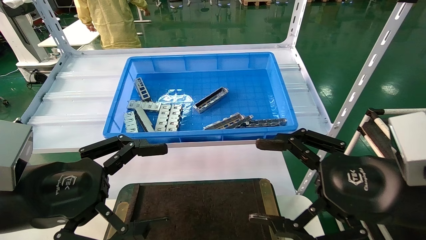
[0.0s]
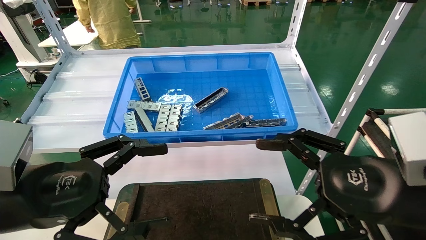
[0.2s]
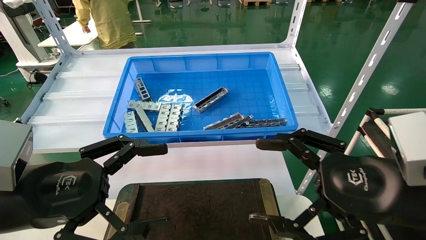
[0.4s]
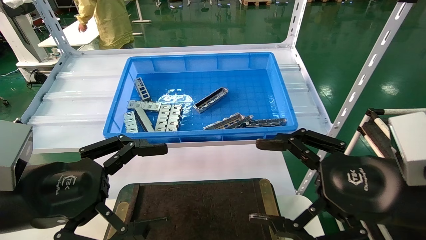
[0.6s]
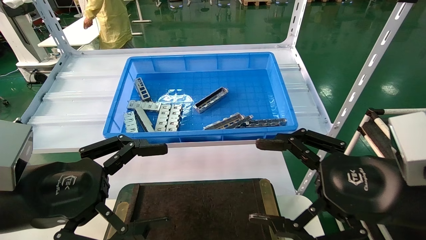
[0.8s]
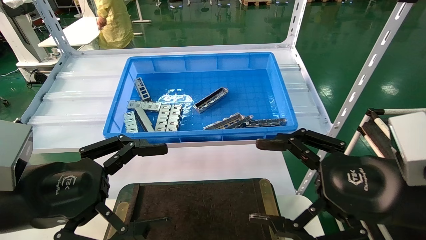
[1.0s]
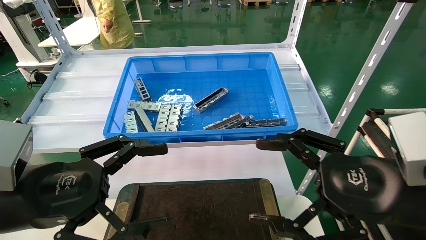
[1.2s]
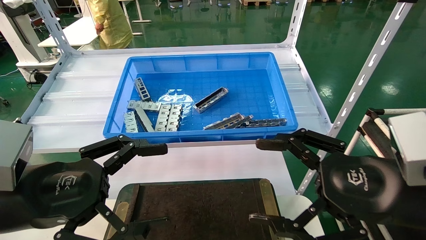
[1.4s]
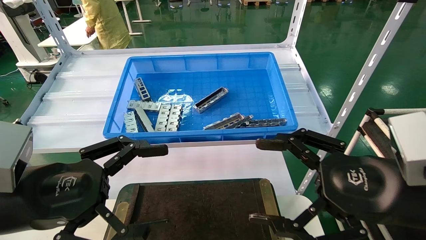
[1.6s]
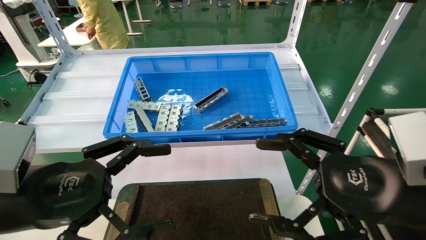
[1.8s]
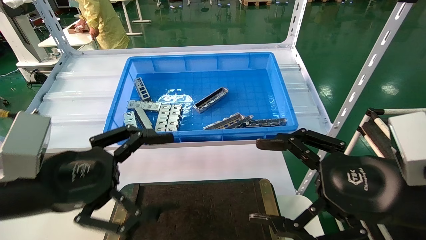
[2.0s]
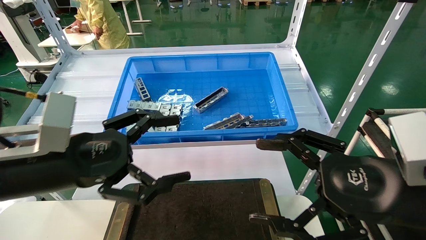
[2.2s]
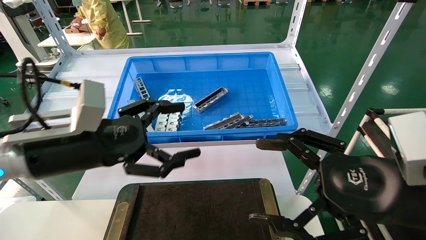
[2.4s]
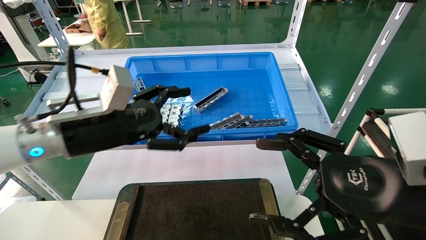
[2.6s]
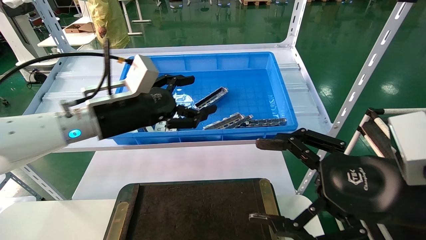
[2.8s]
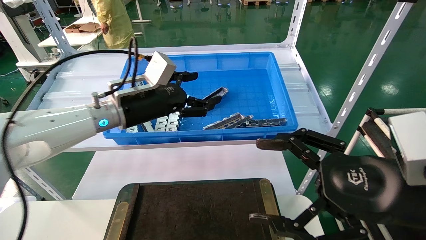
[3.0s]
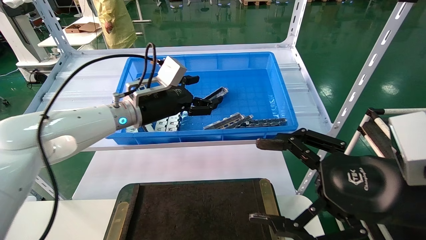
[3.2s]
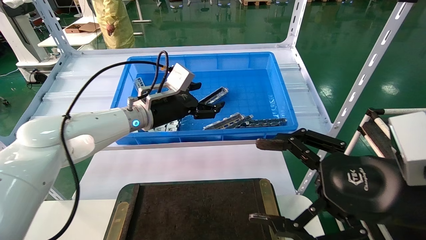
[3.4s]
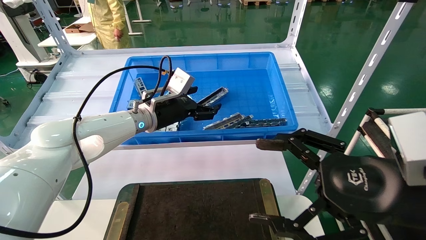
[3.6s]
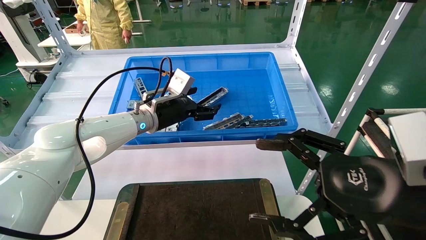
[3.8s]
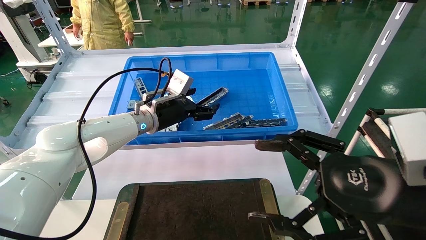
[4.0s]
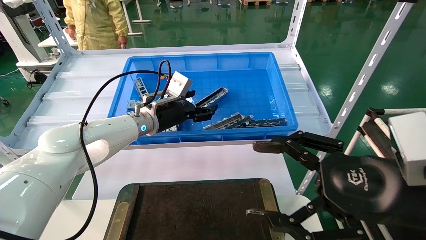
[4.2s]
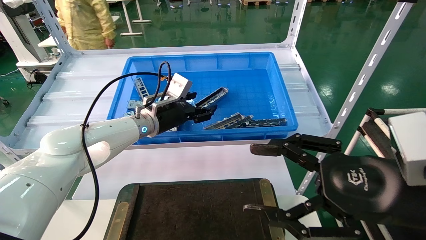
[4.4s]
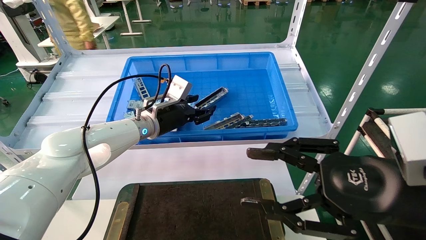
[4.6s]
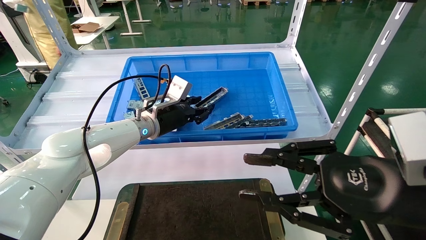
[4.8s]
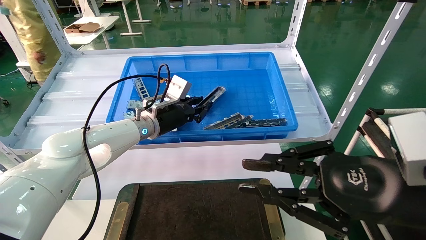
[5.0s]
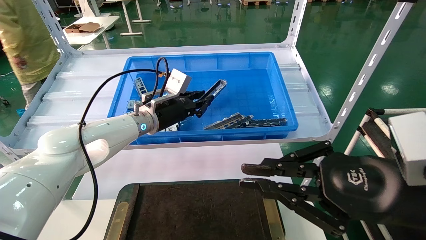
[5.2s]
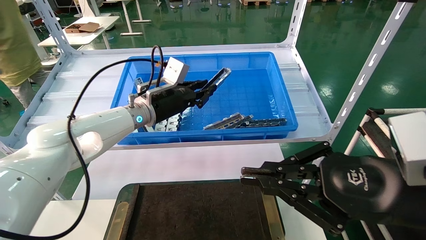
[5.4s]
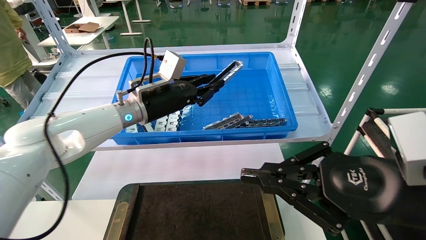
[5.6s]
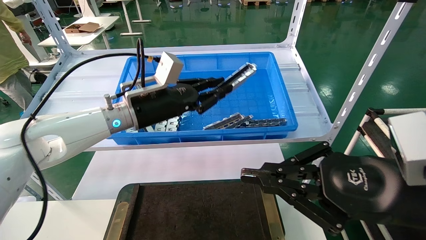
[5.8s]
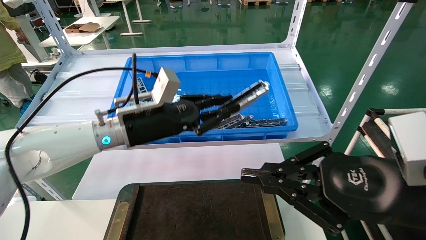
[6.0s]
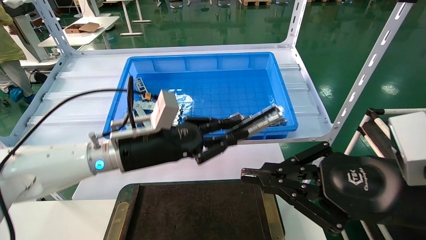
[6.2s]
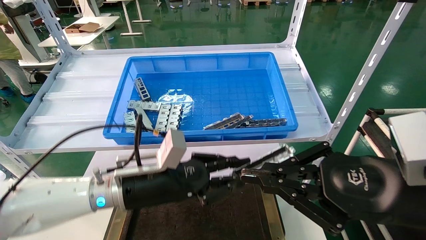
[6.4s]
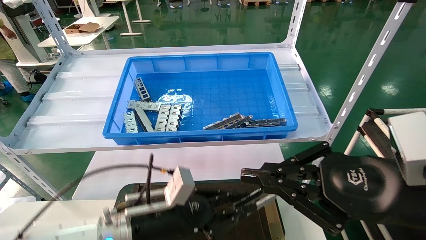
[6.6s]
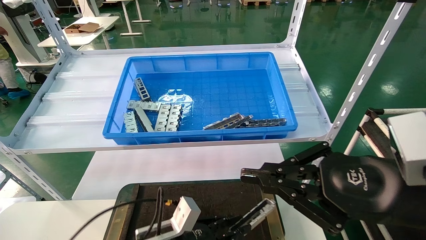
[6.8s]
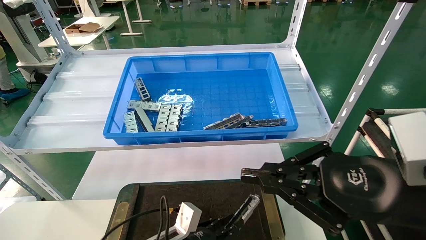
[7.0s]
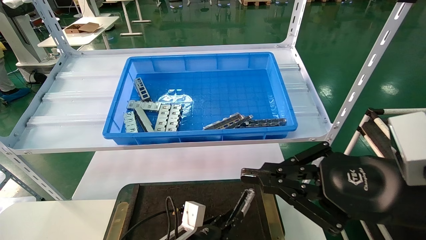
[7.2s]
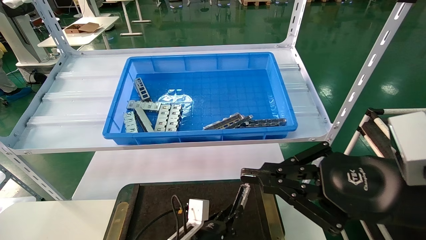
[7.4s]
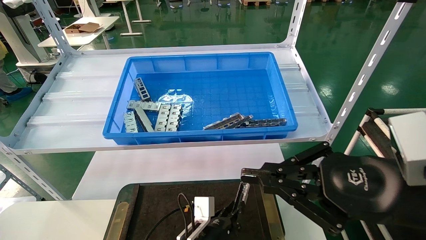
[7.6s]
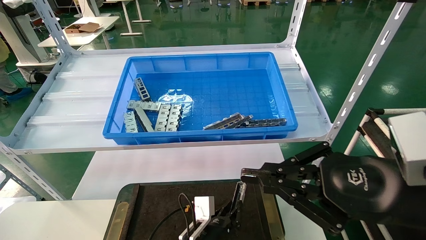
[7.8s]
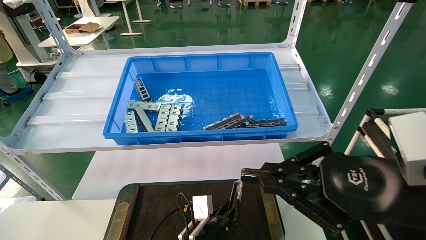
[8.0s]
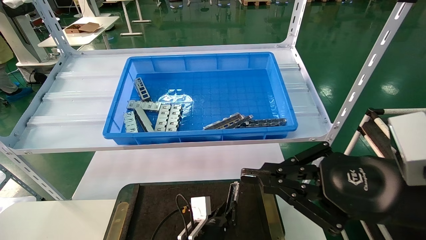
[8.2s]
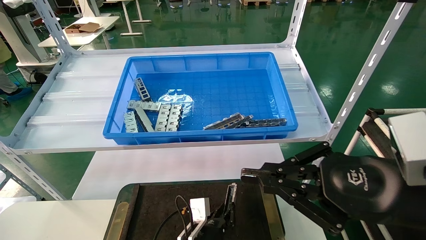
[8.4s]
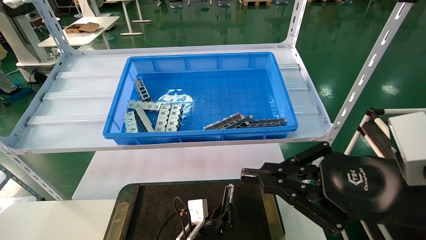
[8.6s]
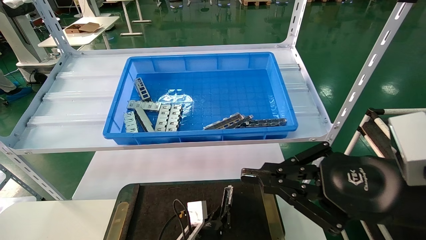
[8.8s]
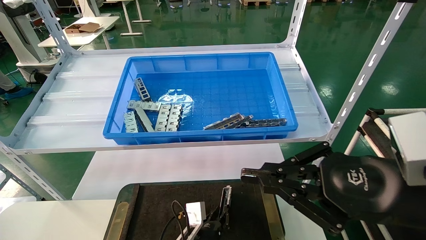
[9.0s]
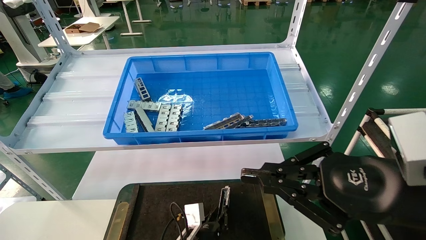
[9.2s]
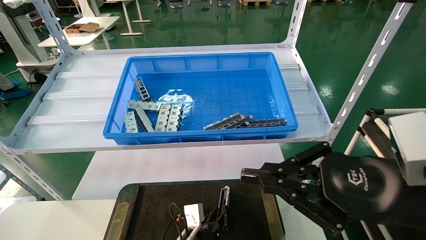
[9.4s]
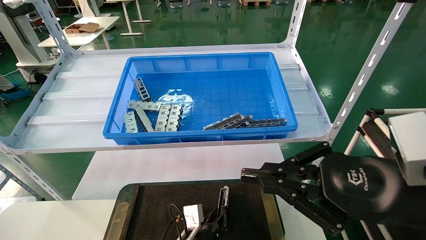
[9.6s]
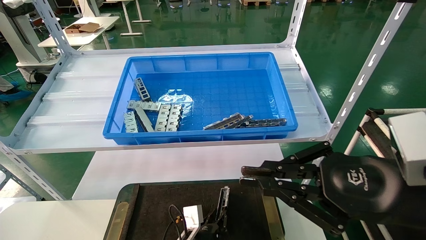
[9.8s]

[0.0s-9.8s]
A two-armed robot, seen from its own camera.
Task of the whole recording: Grasp the part with one hand and place it on the black container.
Step, 2.0s to 5.6s: Pick up the front USB bracket from the feeding area.
0.0s to 1.4s: Neither gripper changes place.
1.4s to 2.8s: The left gripper shifts about 20 cm forward and to the right.
2.8s to 4.2s: The left gripper travels forward by roughly 10 cm.
4.2s to 5.6s: The left gripper shifts by some 5 cm, and closes up; the right gripper closes its fingers.
5.6s to 7.0s: The left gripper shifts about 30 cm downward and backward.
7.0s to 8.4s: The left gripper travels to the right and downward by some 10 cm.
8.4s to 9.8s: There are only small adjustments of the grippers.

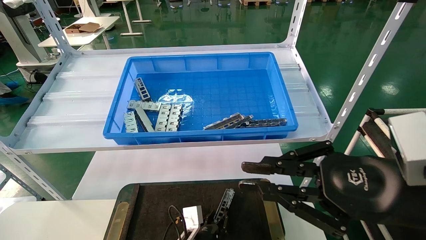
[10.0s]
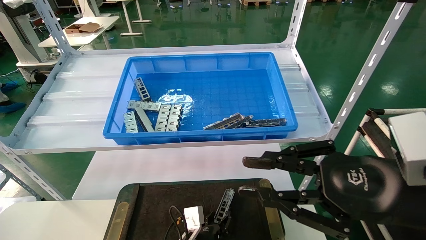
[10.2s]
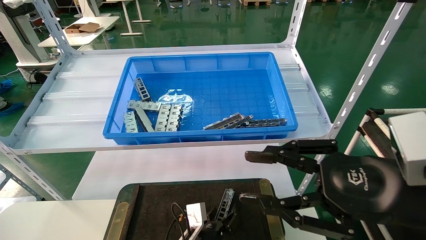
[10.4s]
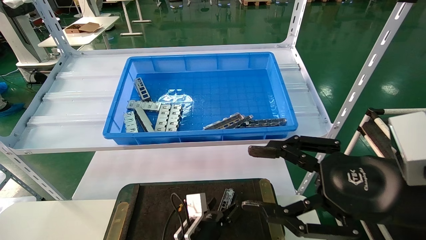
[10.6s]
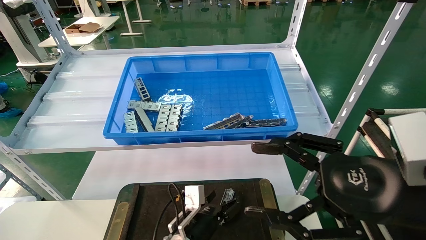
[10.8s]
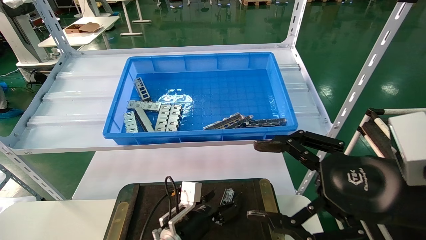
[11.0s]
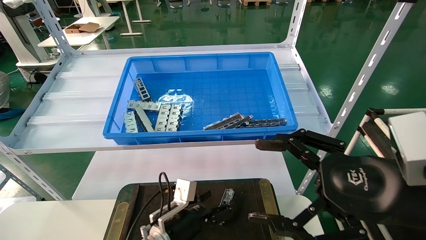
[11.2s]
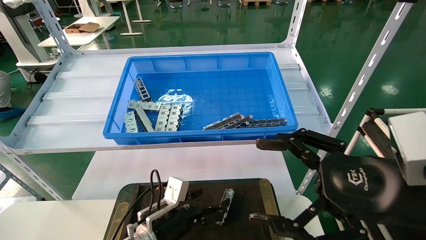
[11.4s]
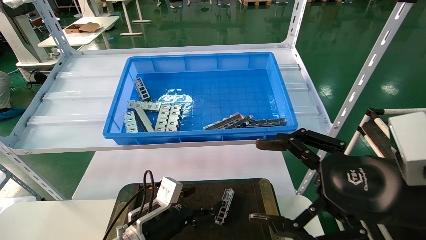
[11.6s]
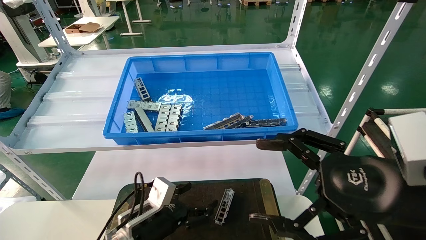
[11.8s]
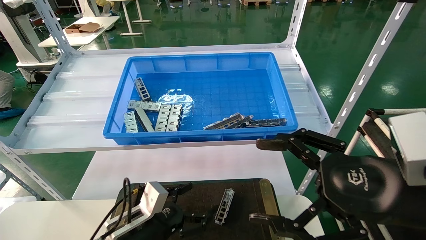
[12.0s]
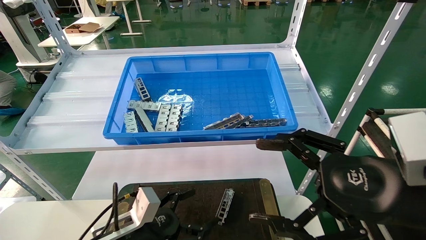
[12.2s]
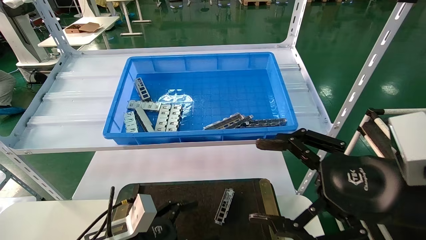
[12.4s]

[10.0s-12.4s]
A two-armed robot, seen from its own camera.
Task of the whole recording: Grasp the part with one hand and place it on the black container.
10.0s to 11.2s: The right gripper opens its fingers. Meanwhile the left gripper travels upward and to the left by roughly 10 cm, and opens its fingers.
11.2s to 12.4s: The left gripper shifts some 10 cm to the left and backward.

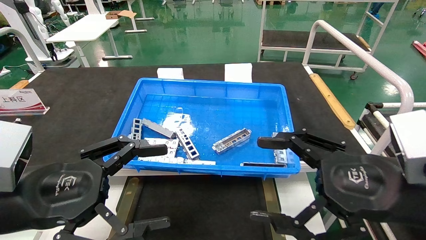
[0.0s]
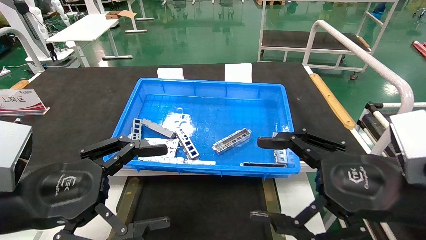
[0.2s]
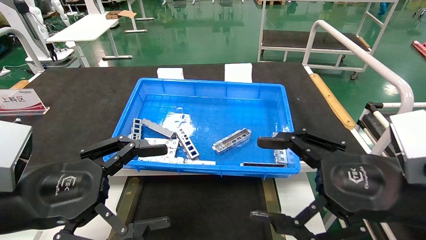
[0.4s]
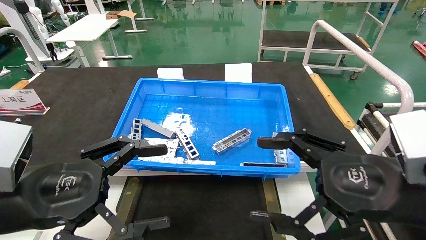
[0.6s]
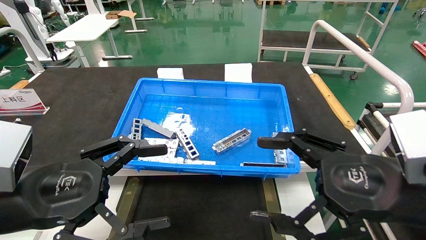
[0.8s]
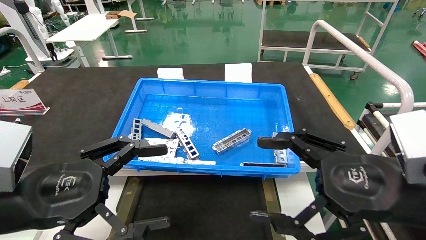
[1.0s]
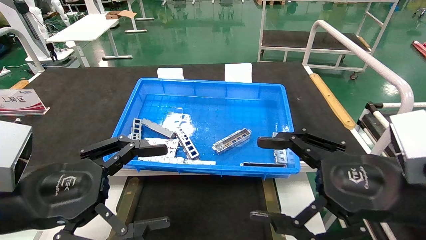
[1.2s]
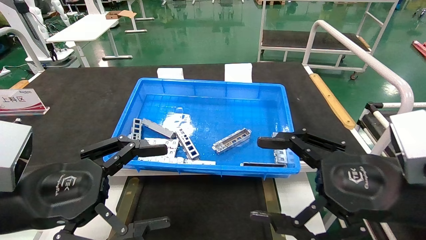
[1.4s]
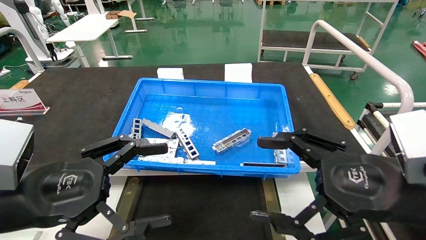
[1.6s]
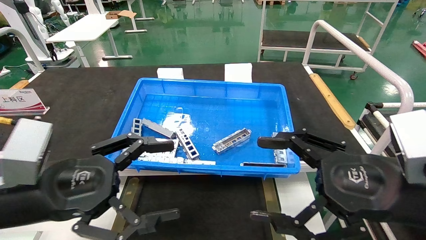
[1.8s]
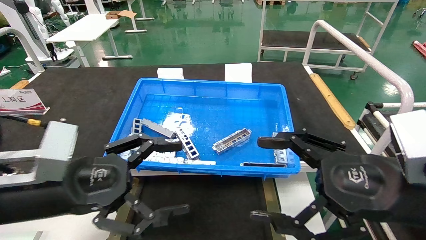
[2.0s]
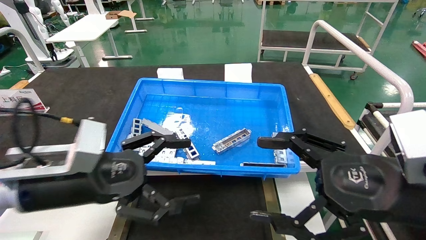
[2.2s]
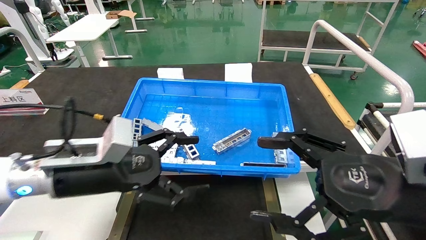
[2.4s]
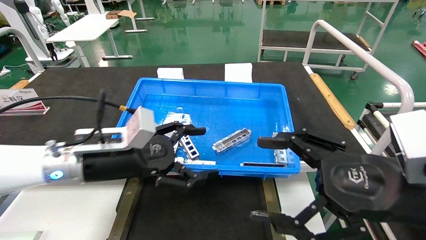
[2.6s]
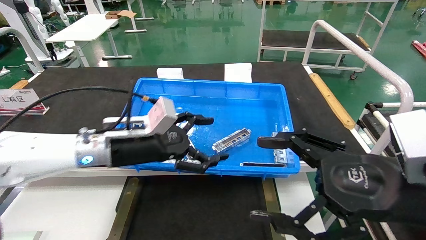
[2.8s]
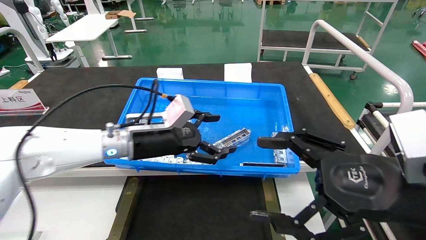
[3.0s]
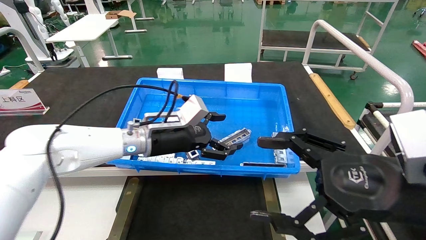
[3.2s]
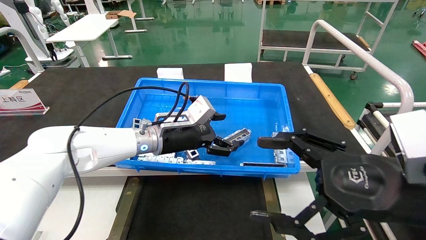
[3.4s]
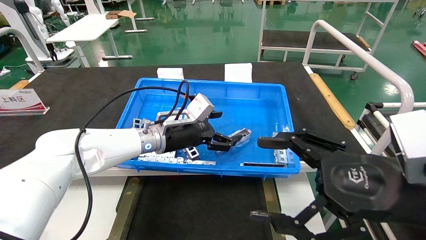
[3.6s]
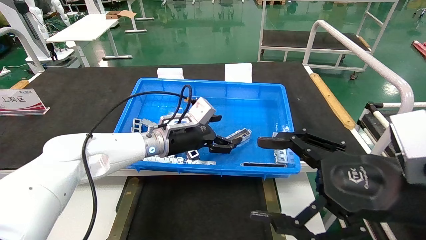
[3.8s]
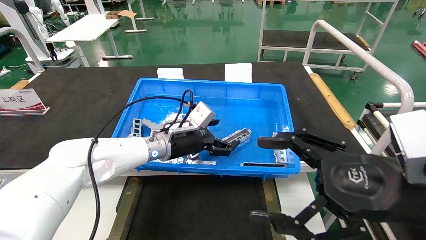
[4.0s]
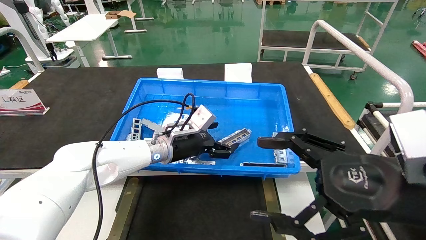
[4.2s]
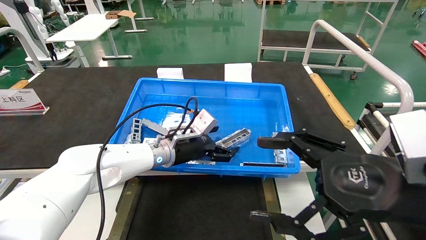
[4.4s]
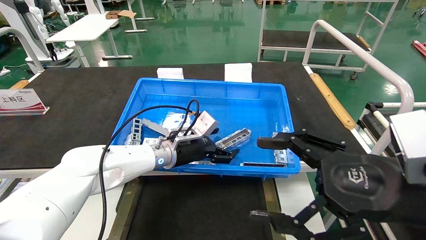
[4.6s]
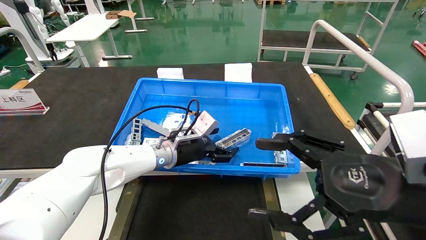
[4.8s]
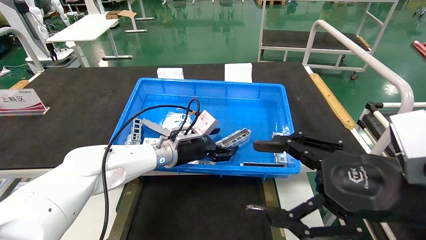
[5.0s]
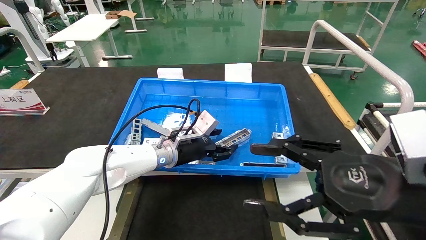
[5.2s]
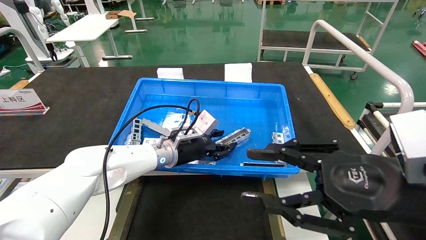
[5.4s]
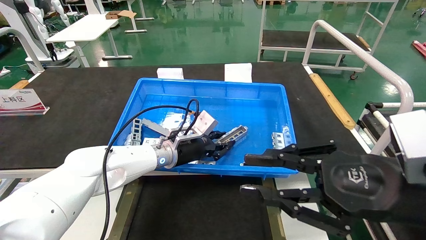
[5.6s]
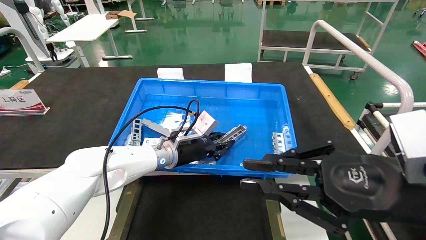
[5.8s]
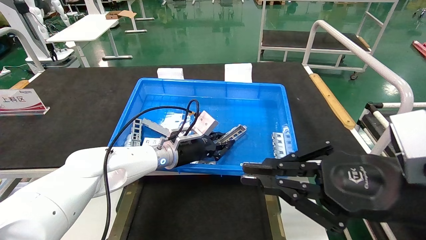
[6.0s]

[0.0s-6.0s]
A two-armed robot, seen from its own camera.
Task of the whole recording: Grasp the part with one hand and place it on the black container.
Step, 2.0s to 5.8s: Pick up the front USB bracket from the feeding area.
0.0s to 1.6s: Both grippers stay put.
1.6s to 3.0s: The left gripper moves forward and to the right, about 25 cm.
3.0s to 4.4s: The left gripper moves forward, downward and to the right, some 10 cm.
4.4s to 6.0s: The left gripper closes its fingers; the right gripper closes its fingers.
